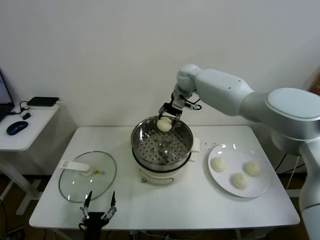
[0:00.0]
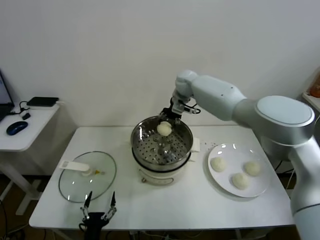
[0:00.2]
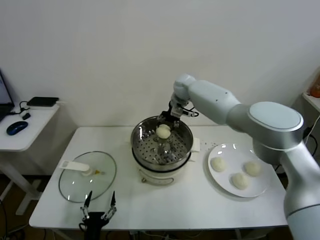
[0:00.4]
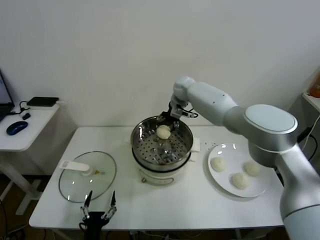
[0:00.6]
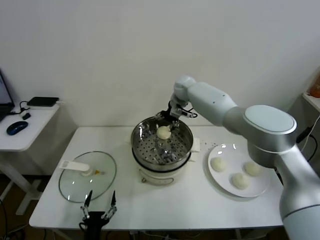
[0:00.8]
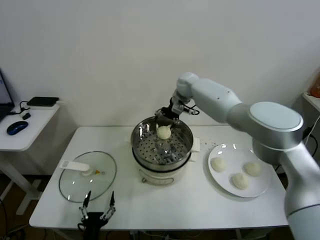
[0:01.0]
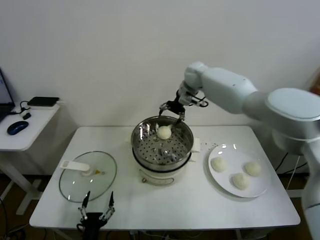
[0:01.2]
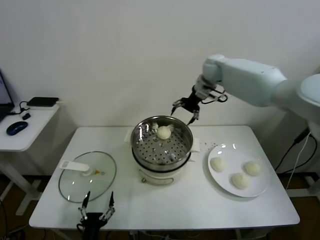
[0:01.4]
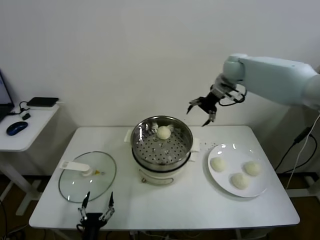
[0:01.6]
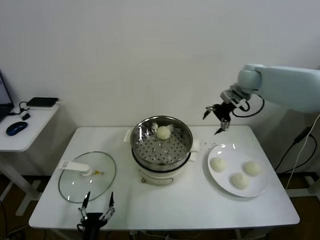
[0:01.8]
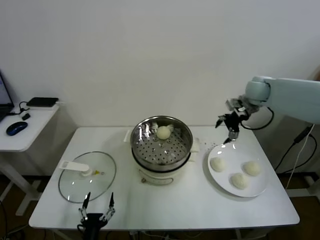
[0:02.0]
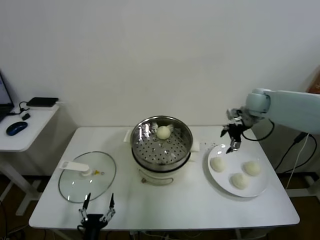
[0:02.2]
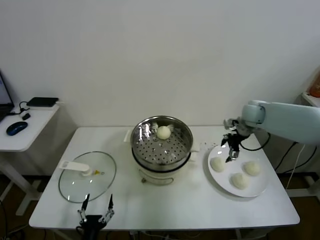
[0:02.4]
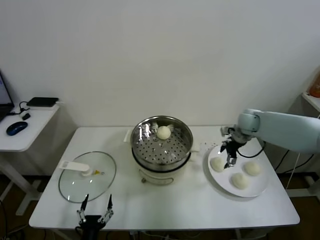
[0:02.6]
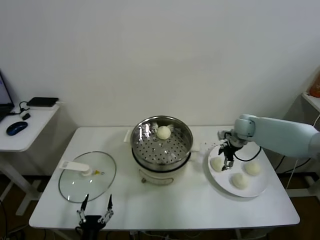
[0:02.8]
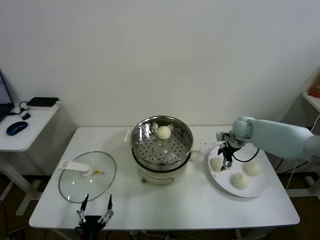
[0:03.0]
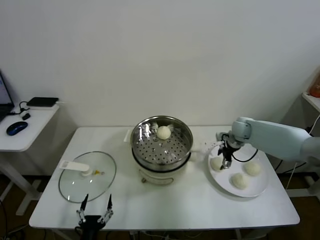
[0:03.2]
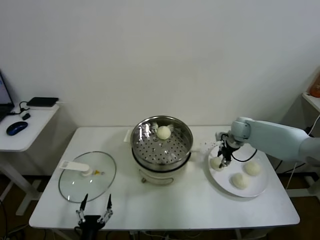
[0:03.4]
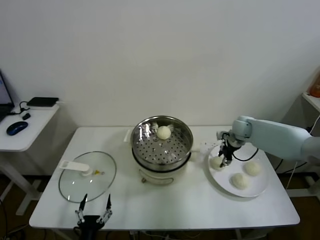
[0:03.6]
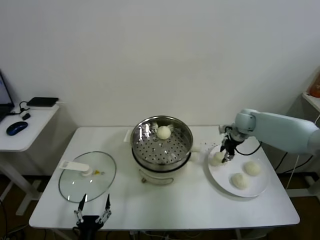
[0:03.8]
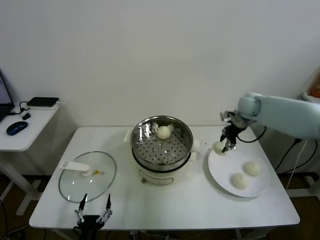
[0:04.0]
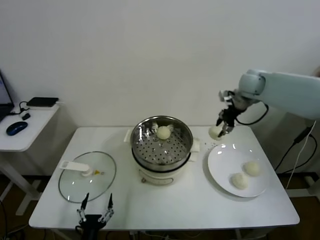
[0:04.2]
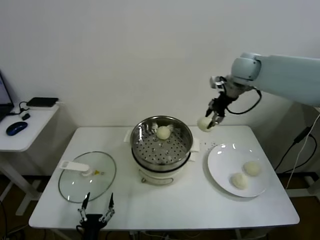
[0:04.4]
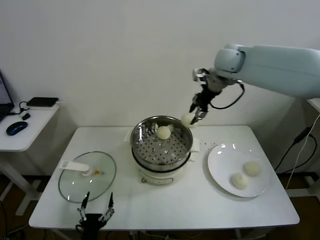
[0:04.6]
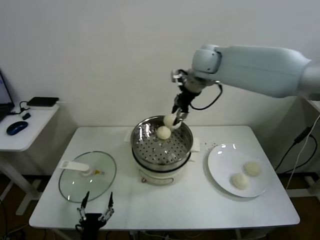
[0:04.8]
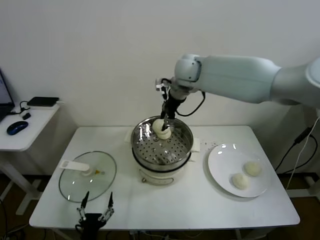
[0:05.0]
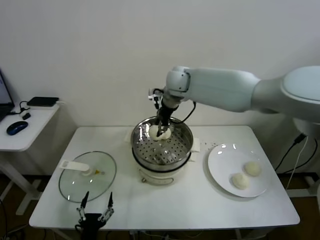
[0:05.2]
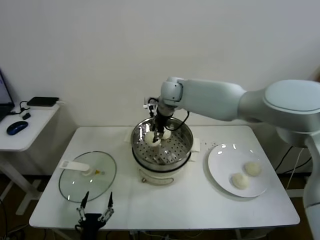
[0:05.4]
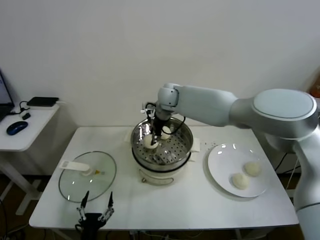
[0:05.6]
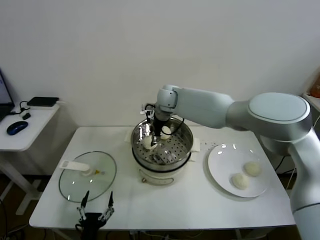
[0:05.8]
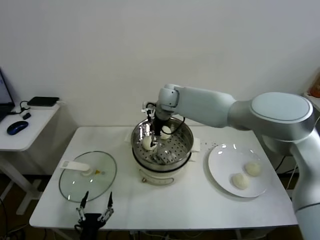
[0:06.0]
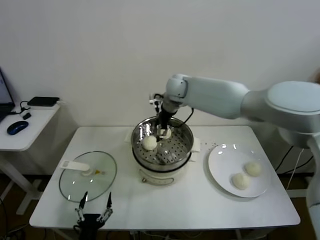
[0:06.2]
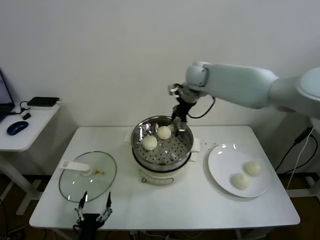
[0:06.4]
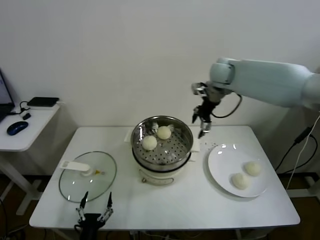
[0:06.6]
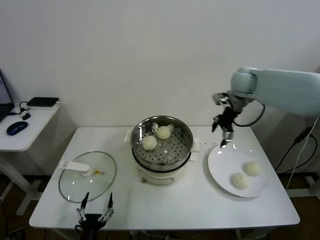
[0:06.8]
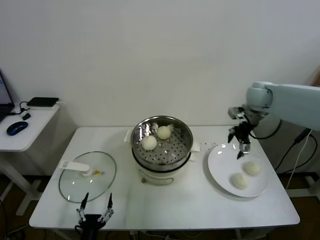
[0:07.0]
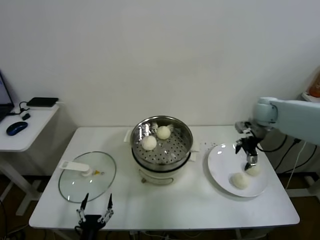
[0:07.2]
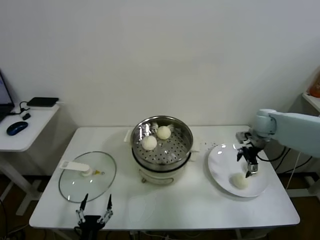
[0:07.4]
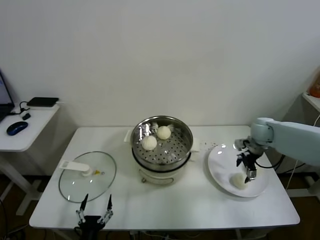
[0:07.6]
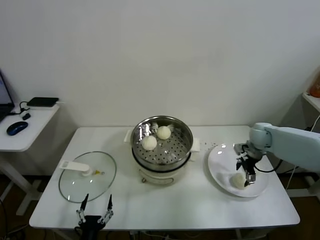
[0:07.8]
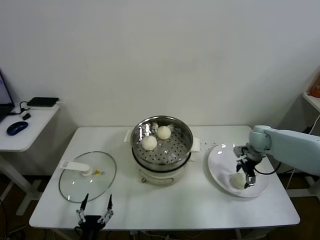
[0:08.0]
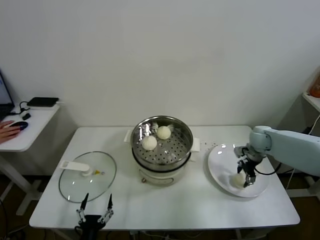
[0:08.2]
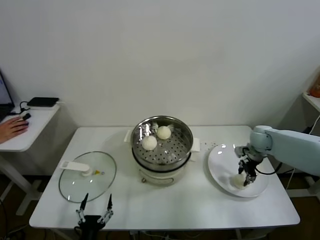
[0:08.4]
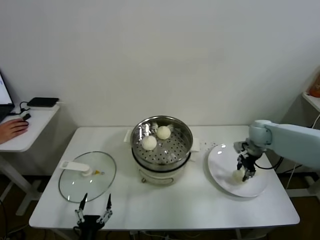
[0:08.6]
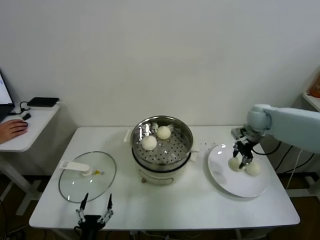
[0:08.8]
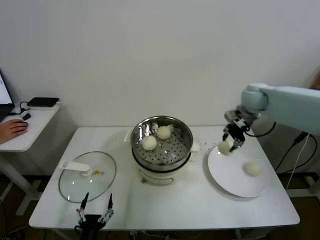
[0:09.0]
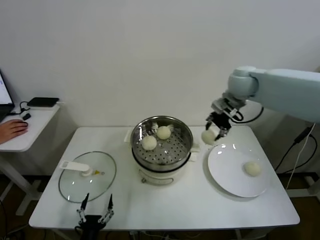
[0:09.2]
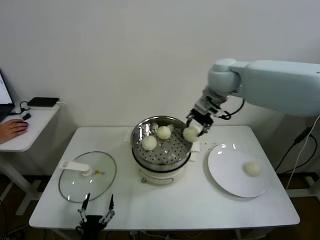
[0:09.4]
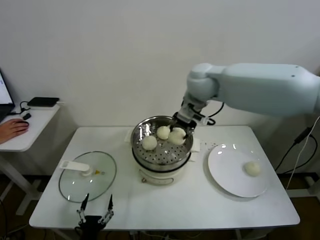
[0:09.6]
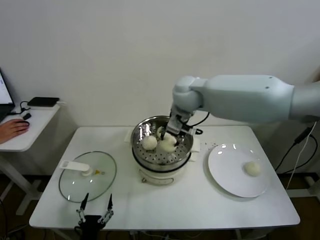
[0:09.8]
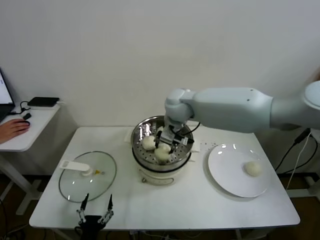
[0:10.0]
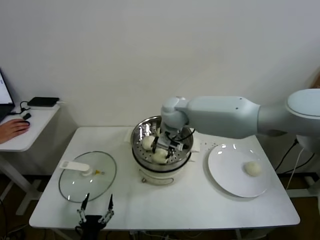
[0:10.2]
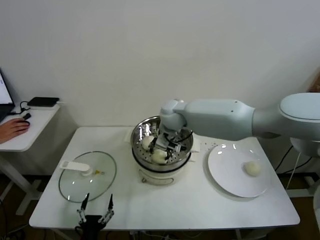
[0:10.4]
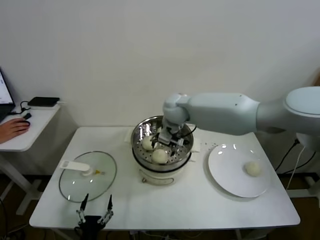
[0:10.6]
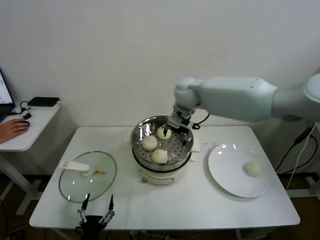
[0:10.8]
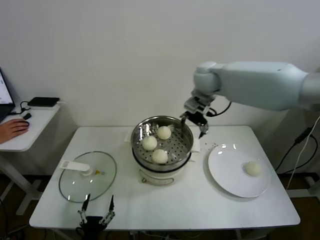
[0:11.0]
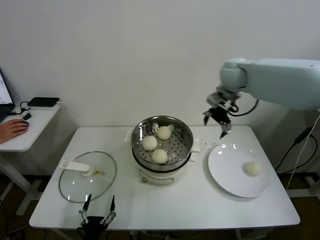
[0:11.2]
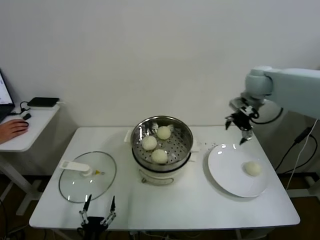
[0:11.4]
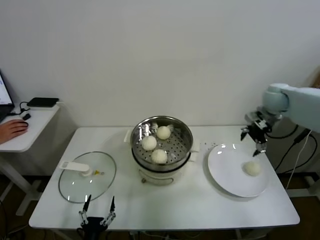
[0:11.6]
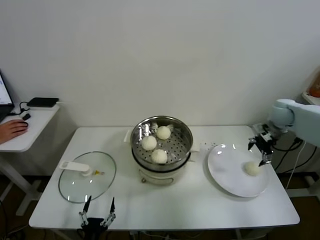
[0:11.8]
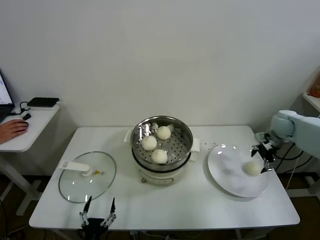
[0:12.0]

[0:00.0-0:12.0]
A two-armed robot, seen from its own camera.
Task of the whole recording: take steamed baozi put them in steamer.
Step, 0:01.0 to 0:03.4: Grasp the baozi in the plate with right gripper.
Step, 0:03.6 to 0:05.8: Place the baozi on the steamer with right gripper.
Step, 0:06.0 to 0:08.4: Grasp the baozi in the plate with right gripper.
Step, 0:08.6 to 0:10.4: Place the baozi on the steamer with right gripper.
0:00.0 to 0:01.6: The right gripper goes roughly 20 cm to the right, and opens.
0:01.6 to 0:03.0: The right gripper travels downward by approximately 20 cm.
0:03.0 to 0:04.4: The right gripper shifts about 25 cm upward, and closes.
0:04.4 to 0:06.0: The right gripper travels to the left and downward by about 25 cm, and opens.
0:06.0 to 0:07.6: The right gripper moves to the right, about 35 cm.
0:07.6 to 0:09.0: The right gripper goes roughly 15 cm upward and to the left, and closes its fingers.
0:09.0 to 0:10.4: The right gripper is displaced to the left by roughly 25 cm, and opens up.
0:10.4 to 0:12.0: The right gripper goes roughly 40 cm to the right, and opens its fingers.

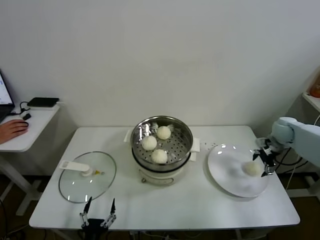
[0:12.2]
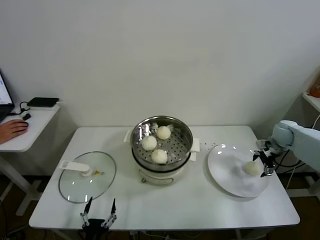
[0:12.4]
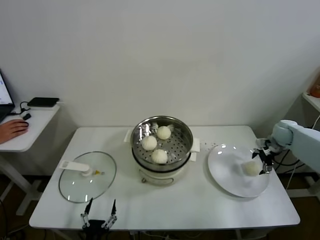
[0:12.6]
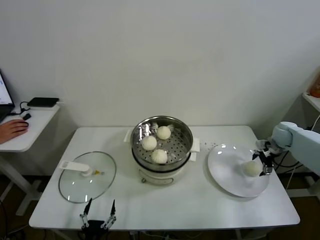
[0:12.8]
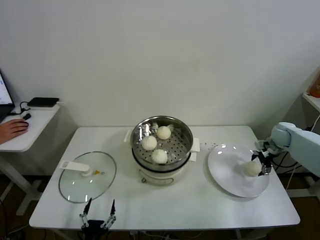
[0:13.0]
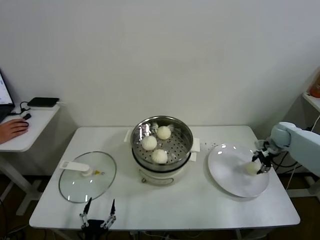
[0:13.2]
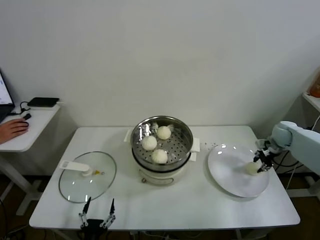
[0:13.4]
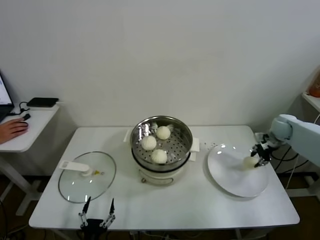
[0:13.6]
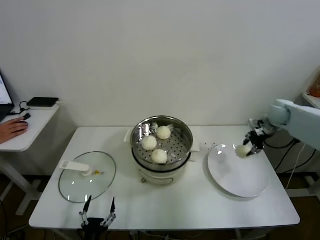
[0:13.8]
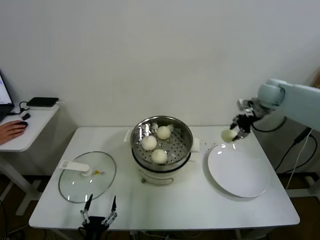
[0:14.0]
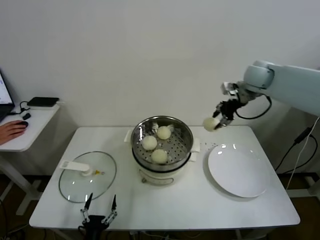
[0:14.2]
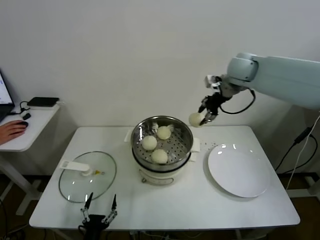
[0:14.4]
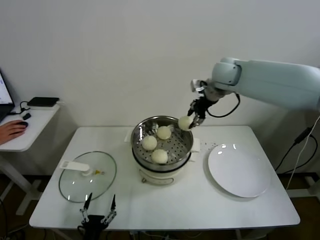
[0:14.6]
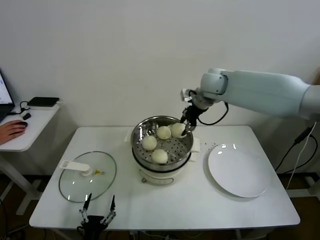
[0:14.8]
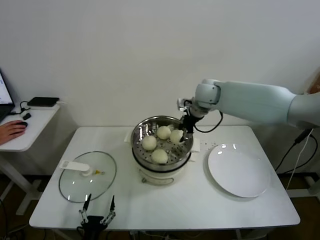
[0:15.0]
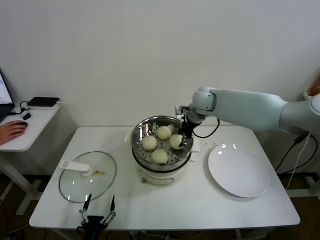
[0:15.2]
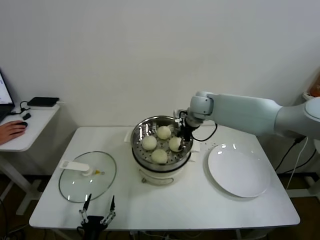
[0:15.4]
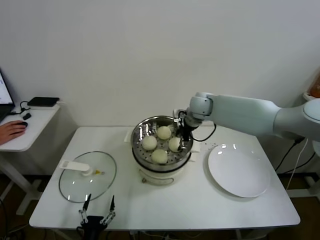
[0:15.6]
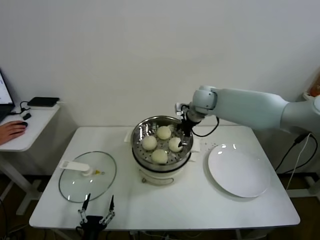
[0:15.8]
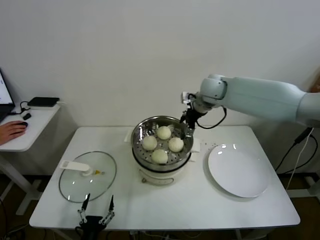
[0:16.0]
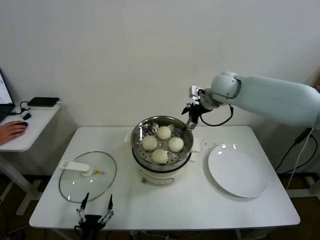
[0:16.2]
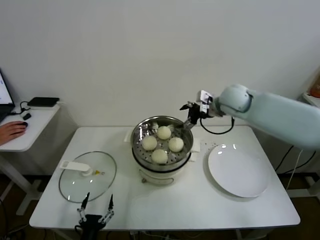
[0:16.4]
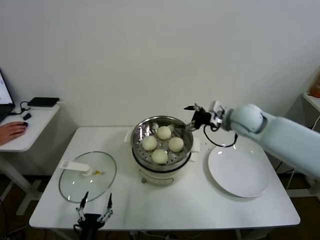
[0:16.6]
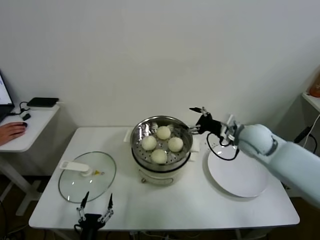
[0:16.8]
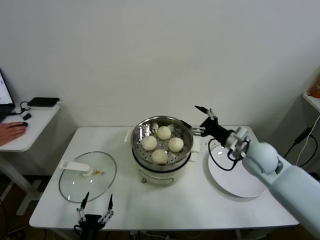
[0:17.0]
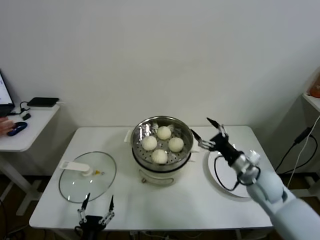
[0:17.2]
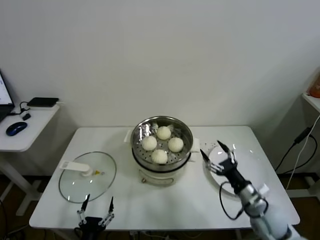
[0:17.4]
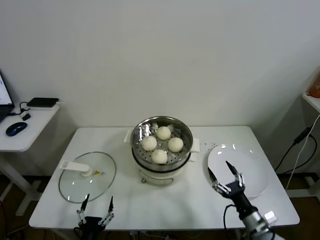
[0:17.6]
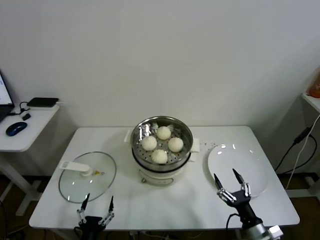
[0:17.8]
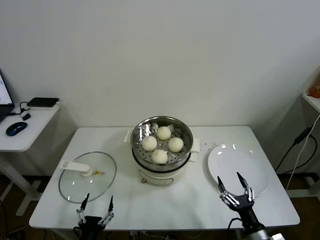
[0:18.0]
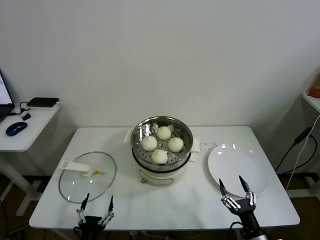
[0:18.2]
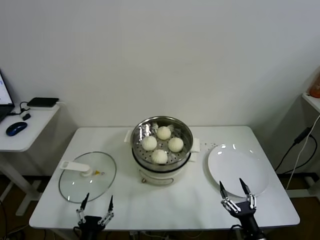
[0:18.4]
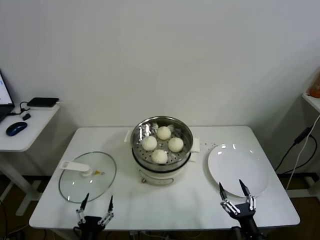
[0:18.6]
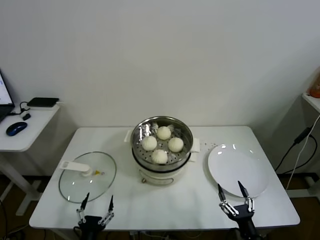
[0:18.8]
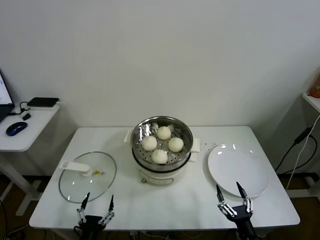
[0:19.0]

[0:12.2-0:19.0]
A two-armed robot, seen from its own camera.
Task of the whole recording: take steamed baozi put them in steamer.
Step, 0:13.6 to 0:15.6: Place the baozi on the steamer with right gripper.
0:12.2 to 0:13.6: The right gripper closes up.
0:13.6 to 0:15.0: The right gripper heads to the left and upward, covering some 35 cm.
0:15.0 to 0:16.2: The right gripper goes downward and returns, some 5 cm each way, and opens.
0:16.2 to 0:17.6: The right gripper travels backward and downward by some 50 cm.
0:17.6 to 0:19.0: The right gripper shifts about 10 cm backward.

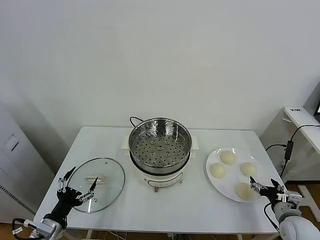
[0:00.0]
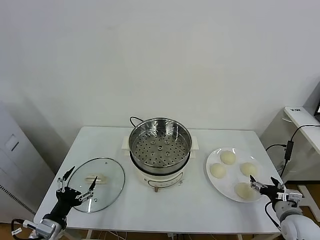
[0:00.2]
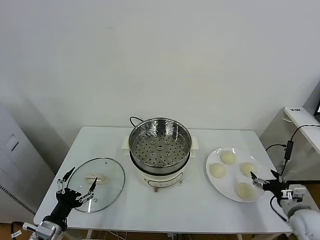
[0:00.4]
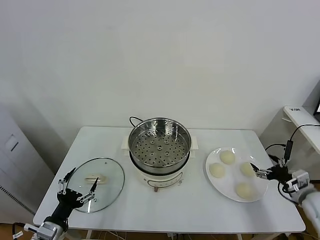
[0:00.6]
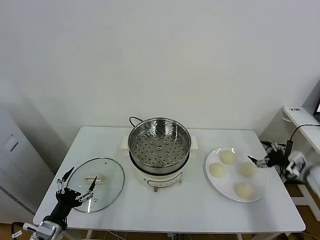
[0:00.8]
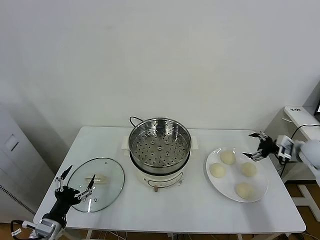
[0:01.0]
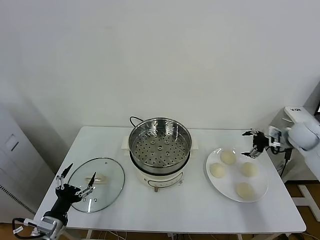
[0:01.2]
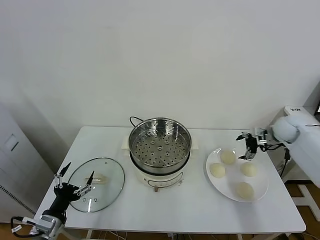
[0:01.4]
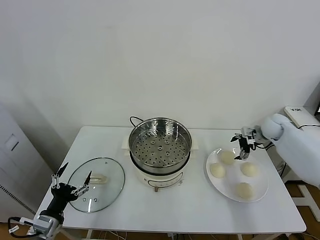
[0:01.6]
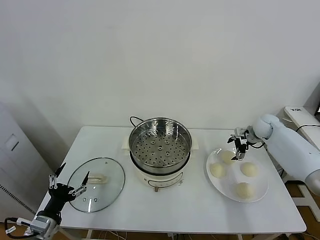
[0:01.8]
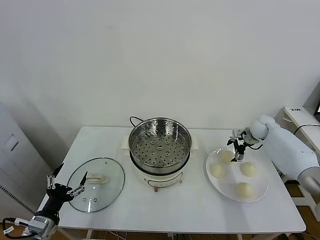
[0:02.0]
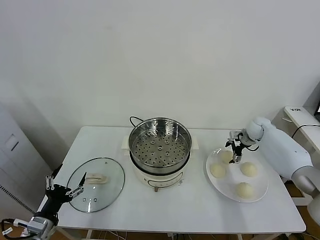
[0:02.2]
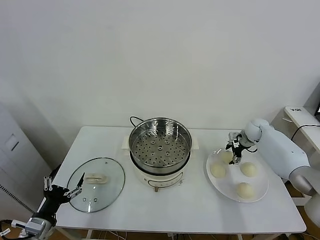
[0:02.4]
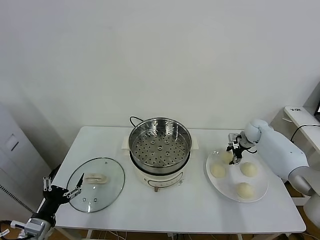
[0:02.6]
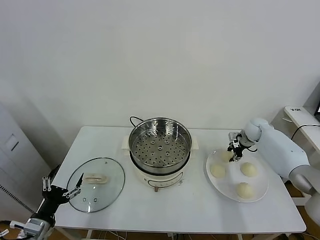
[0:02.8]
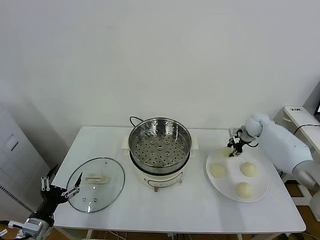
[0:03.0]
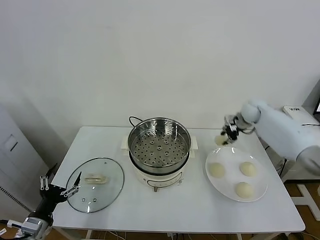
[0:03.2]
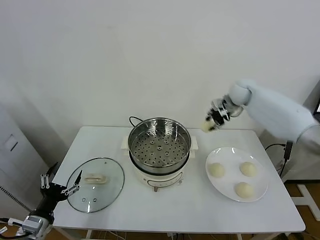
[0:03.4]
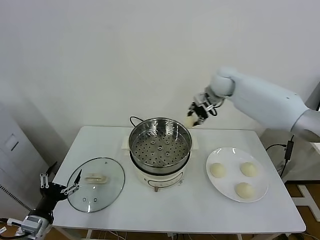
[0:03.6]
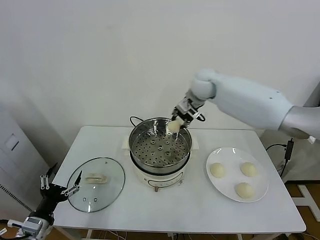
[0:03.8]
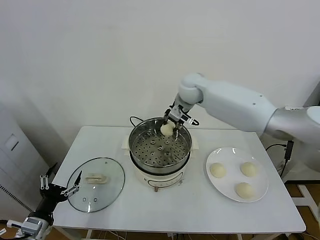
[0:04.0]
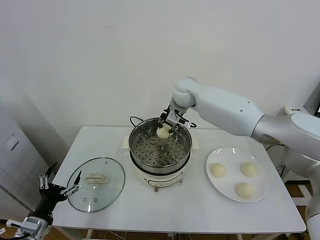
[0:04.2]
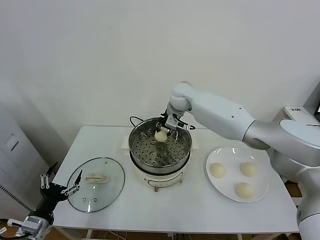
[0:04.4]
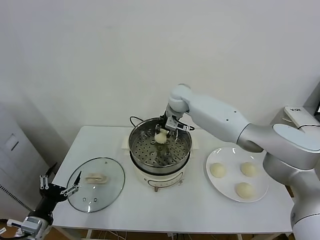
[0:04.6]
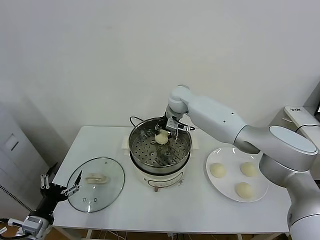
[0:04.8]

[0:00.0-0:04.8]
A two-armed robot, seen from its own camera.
Task of the whole recording: take steamed baozi put them in steamer.
Step, 0:00.0 to 0:02.6: Grasp the baozi in the plate with right gripper.
0:01.6 to 0:03.2: The right gripper goes about 15 cm to the left, upward and forward, and closes.
0:03.2 to 0:04.8: The right gripper is displaced to the left by some 25 cm.
